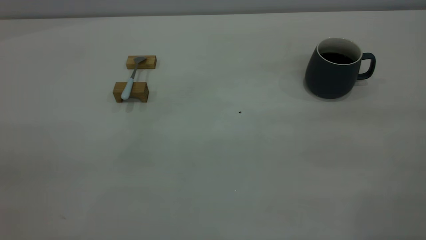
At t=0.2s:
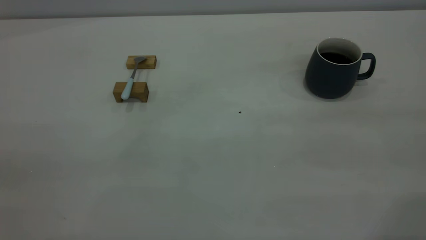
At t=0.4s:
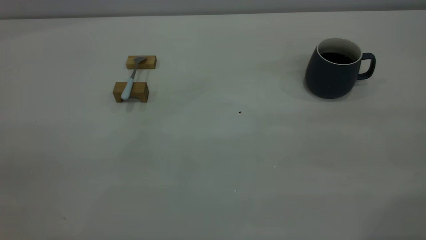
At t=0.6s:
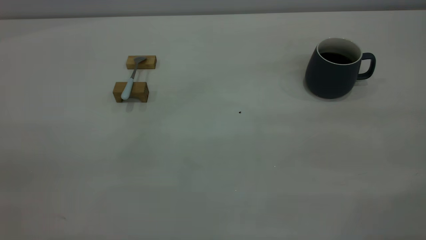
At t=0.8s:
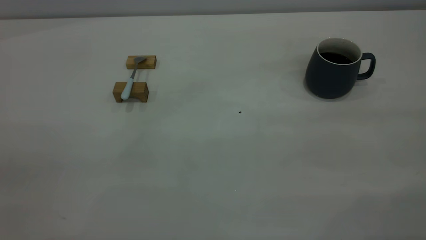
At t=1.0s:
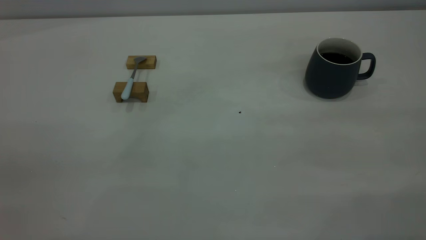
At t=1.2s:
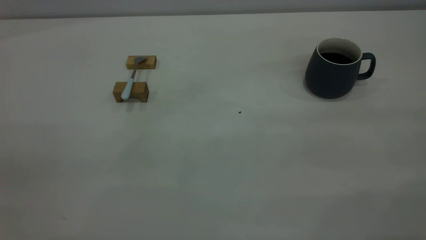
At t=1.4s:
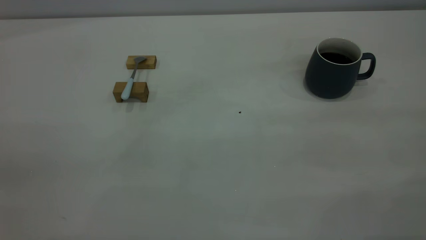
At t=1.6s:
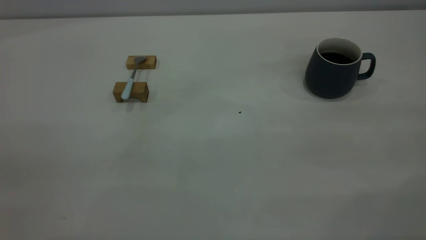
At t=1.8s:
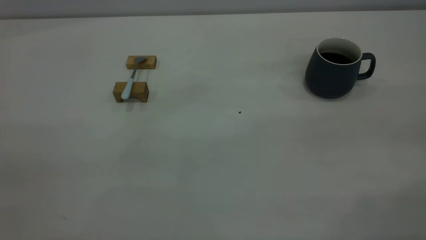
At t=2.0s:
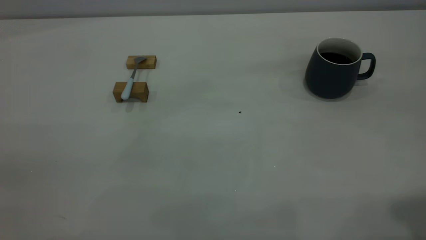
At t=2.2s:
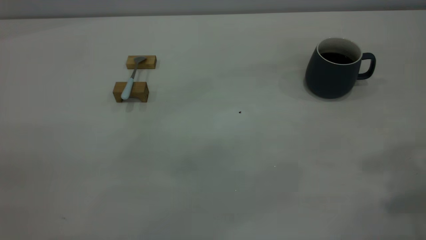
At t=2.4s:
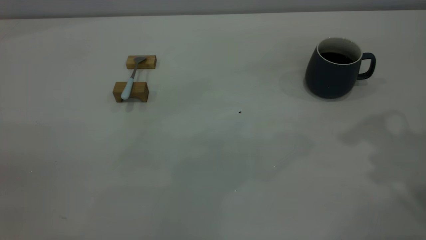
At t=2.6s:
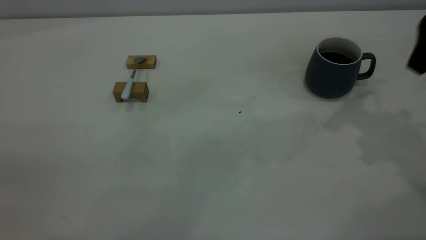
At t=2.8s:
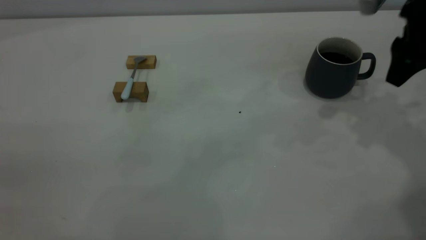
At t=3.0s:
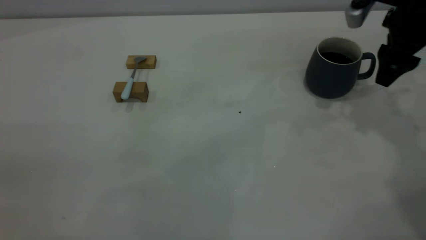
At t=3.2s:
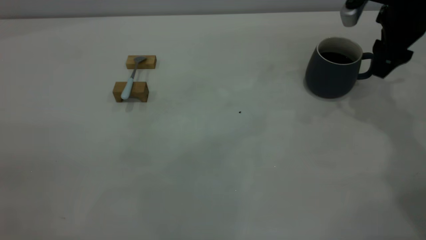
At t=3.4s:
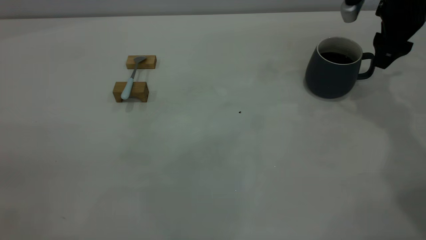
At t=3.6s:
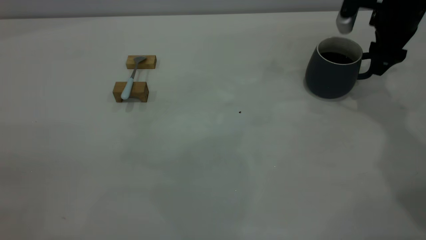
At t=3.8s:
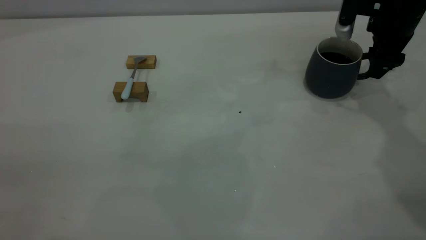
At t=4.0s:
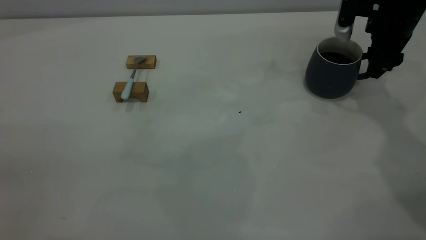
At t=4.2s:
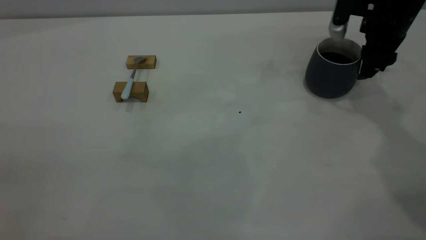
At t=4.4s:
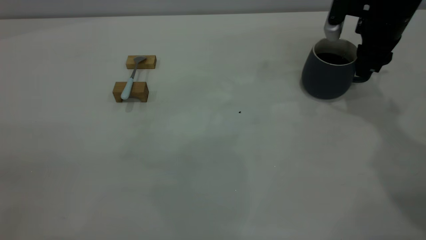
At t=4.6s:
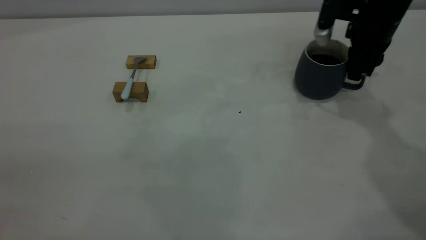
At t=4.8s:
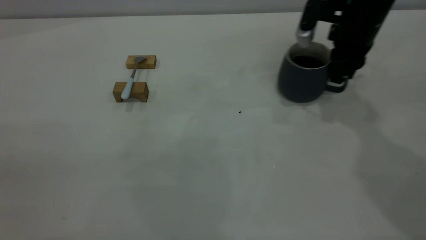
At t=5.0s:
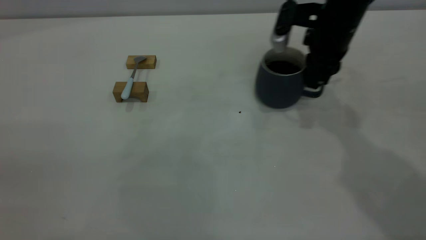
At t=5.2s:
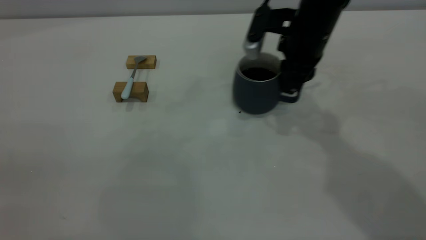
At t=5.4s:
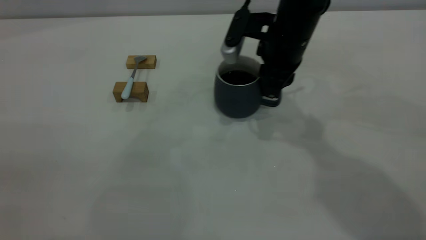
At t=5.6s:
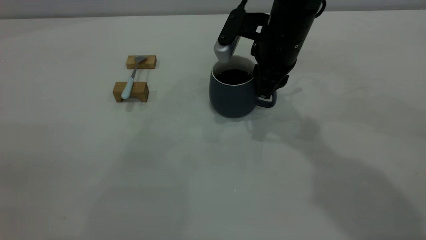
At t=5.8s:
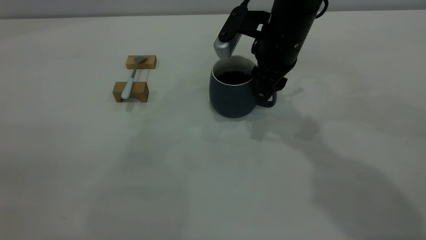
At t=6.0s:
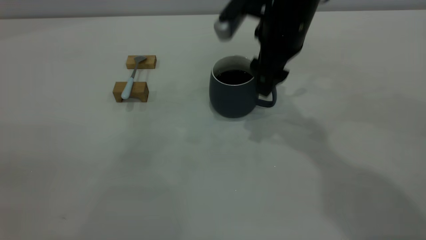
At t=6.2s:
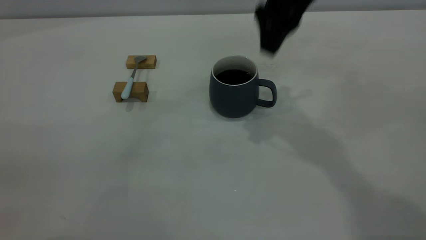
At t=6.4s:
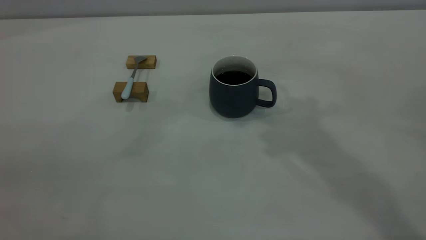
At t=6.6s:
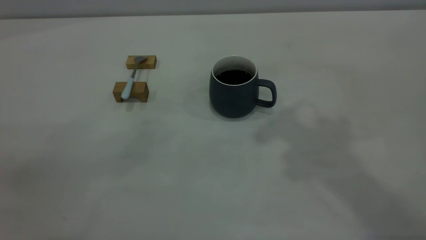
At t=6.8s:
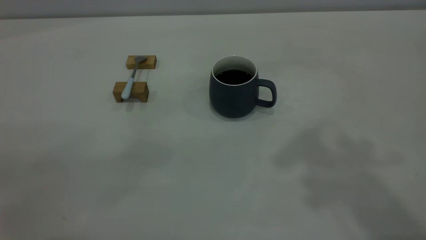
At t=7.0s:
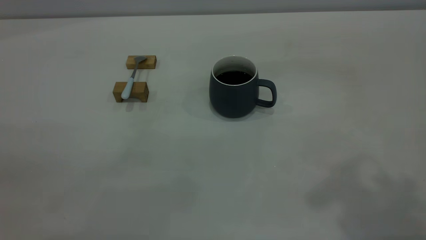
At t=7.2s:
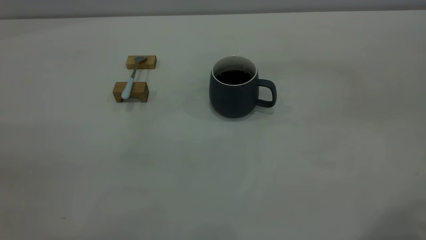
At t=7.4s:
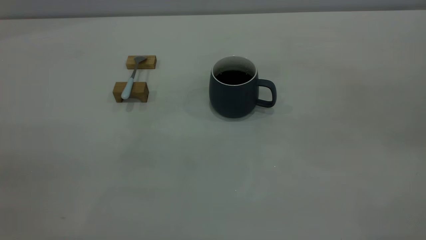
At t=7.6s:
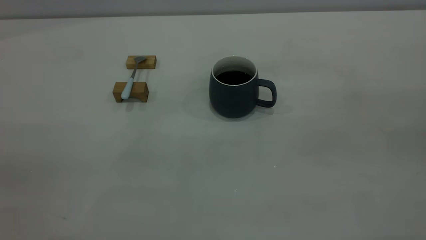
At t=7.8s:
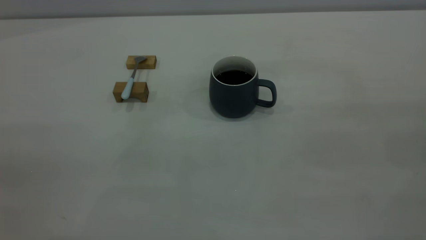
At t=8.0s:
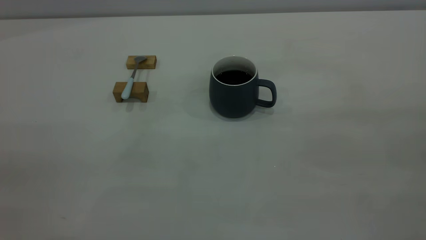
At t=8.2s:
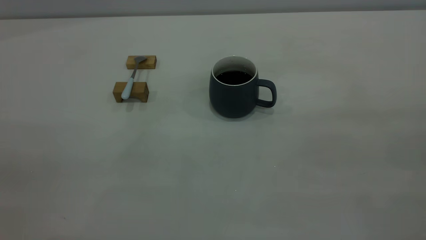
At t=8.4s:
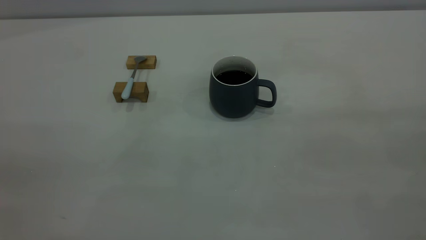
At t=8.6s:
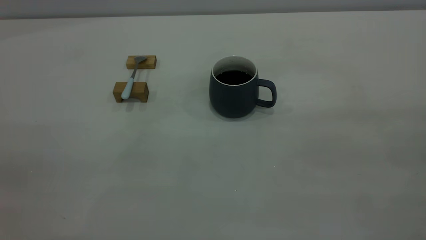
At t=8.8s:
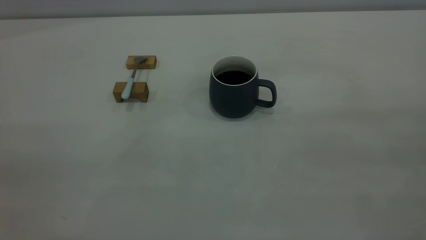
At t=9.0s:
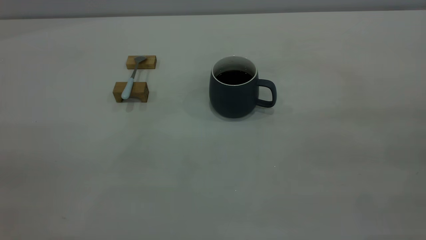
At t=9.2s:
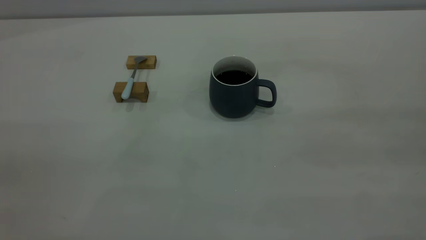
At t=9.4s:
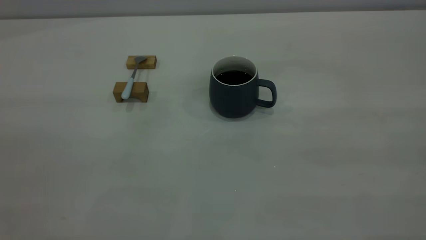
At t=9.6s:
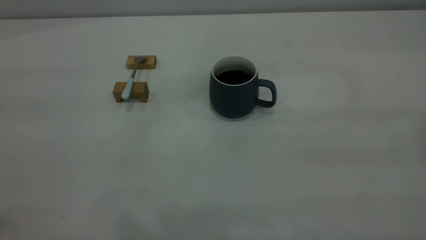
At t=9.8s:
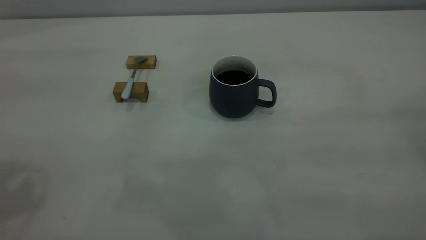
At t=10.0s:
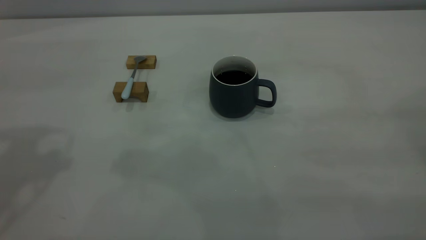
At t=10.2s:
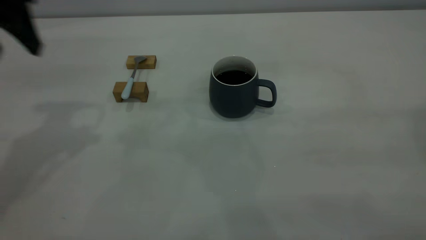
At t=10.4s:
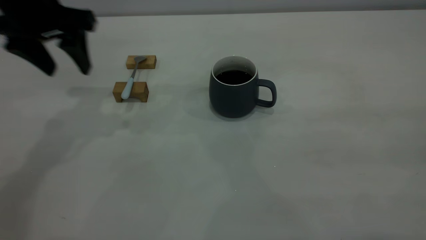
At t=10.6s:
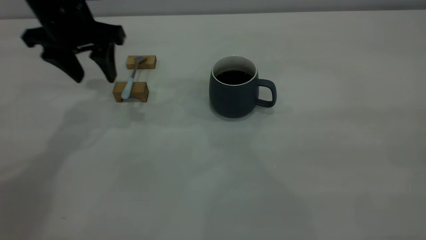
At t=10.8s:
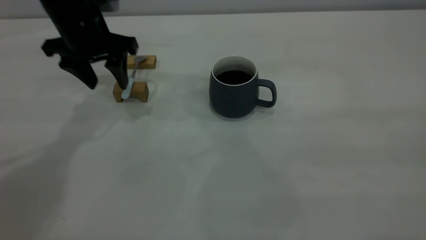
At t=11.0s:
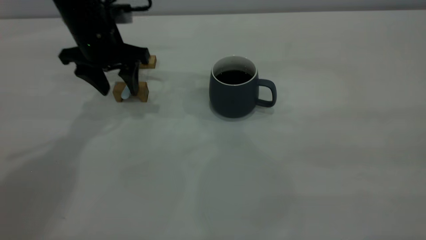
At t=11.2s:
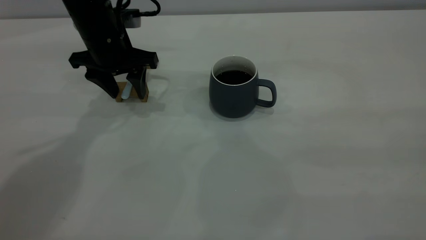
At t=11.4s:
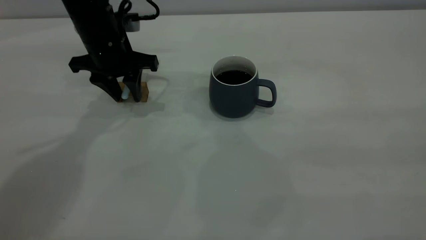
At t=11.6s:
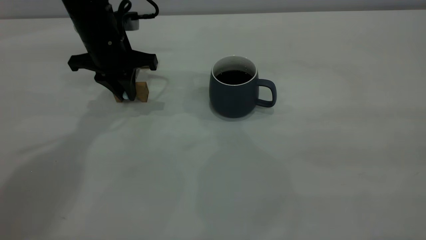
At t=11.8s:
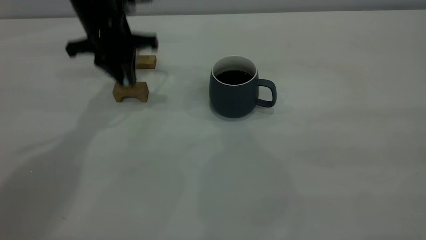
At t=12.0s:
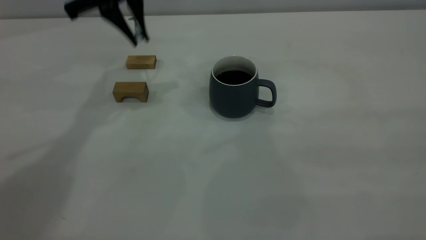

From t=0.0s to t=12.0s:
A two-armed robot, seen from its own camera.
Step, from t=2.6s to t=5.8s: Move the cup in the center of the table with right gripper.
Step, from t=6.0s to t=11.4s: Grasp the spoon with left gripper.
From t=0.0s to t=1.6s: Both grippers stay about where they are.
From t=1.6s to t=3.0s: The right gripper shifts roughly 40 cm forward and downward.
From t=3.0s to t=4.4s: The right gripper changes place by approximately 5 cm, and closes.
From t=4.4s to t=6.0s: The right gripper moves to the left, roughly 15 cm, and opens.
From t=6.0s to t=7.6s: The right gripper is displaced backward, to the right and upward by about 50 cm.
From t=9.0s to t=10.4s: The left gripper travels forward by about 40 cm, and opens.
From t=10.4s to t=12.0s: The left gripper goes roughly 10 cm to the right and forward, goes downward and returns, some 10 cm each way, and closes up.

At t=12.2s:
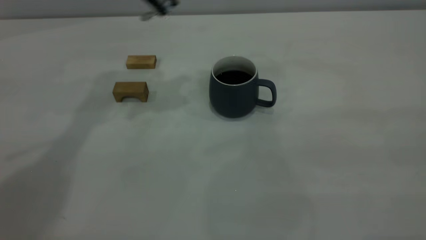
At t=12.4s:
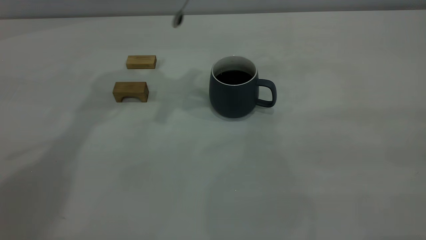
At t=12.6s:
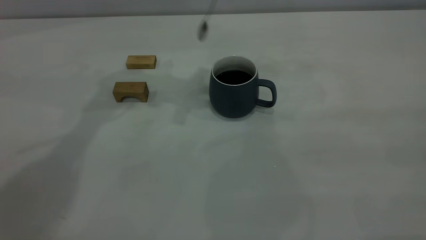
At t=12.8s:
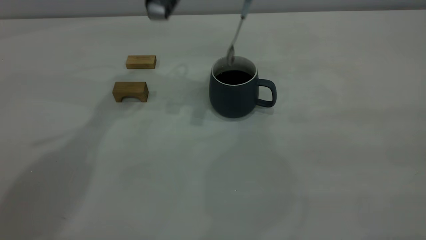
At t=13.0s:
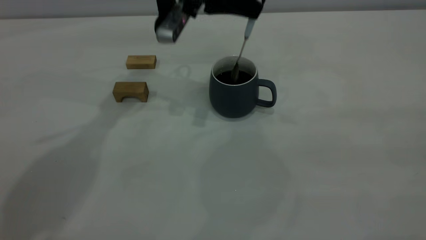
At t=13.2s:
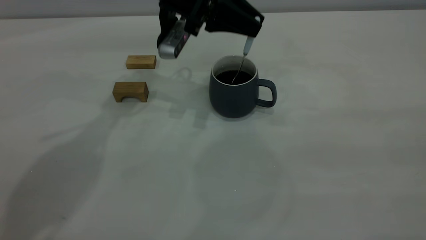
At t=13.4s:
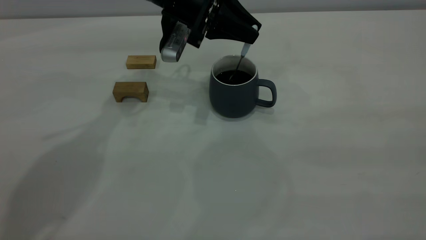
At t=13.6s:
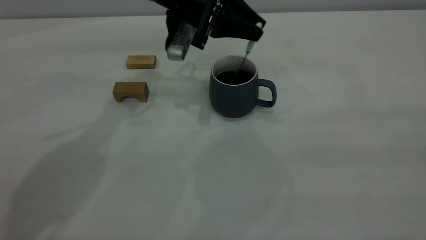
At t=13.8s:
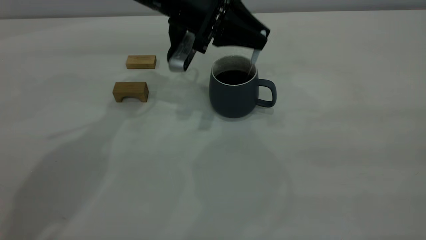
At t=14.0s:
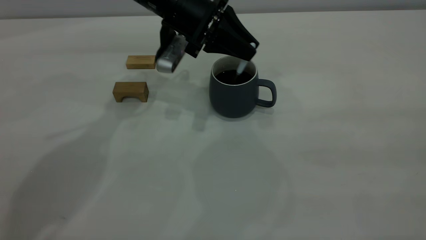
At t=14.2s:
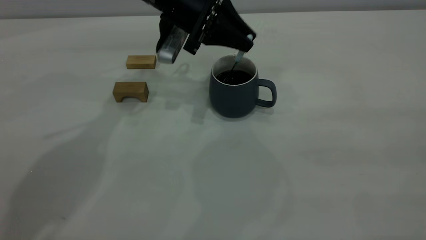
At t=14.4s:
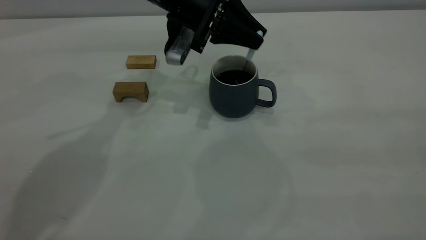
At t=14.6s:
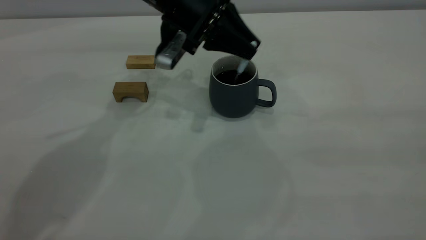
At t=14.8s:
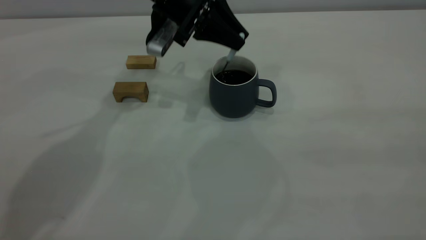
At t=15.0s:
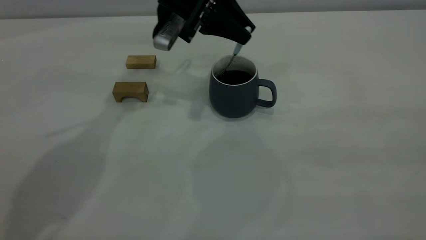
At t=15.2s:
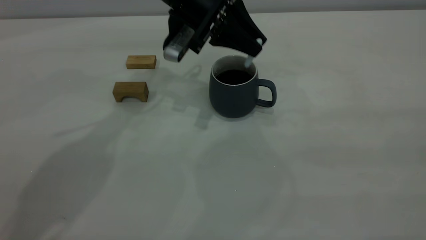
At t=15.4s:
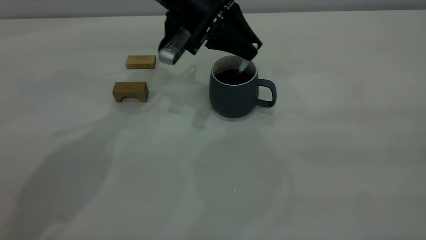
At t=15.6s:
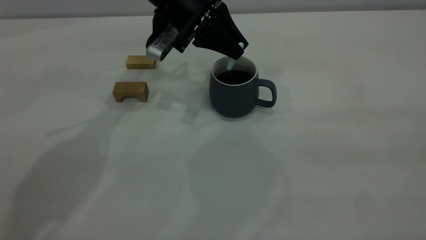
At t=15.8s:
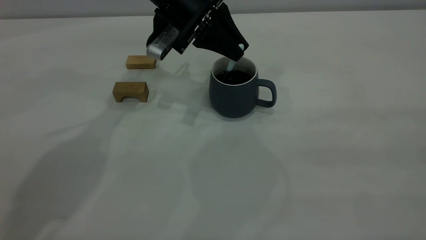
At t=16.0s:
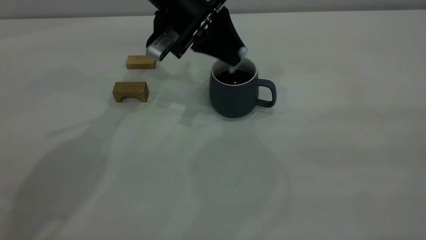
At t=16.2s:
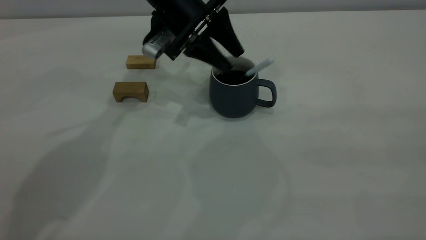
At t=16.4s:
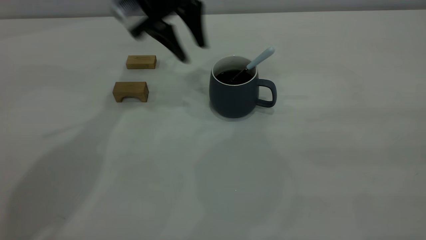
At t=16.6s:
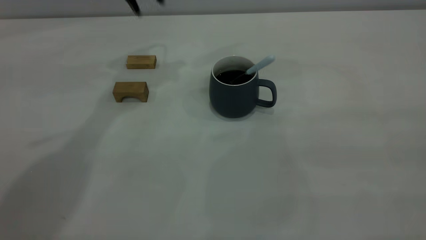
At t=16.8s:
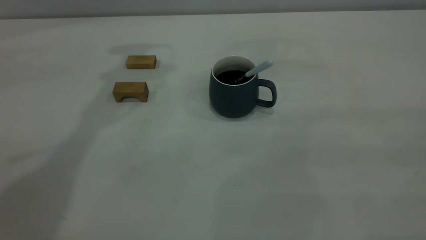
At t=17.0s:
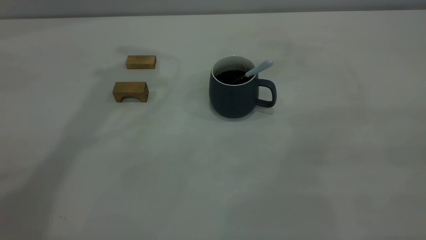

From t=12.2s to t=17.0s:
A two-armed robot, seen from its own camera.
Step, from t=12.2s to t=16.0s: Stir the coffee with left gripper.
From t=12.2s to t=13.8s: The left gripper travels downward and to the right by roughly 15 cm.
From t=13.8s to t=15.4s: There are only small adjustments of the grippers.
From t=15.4s to t=17.0s: The left gripper goes approximately 25 cm upward, and opens.
